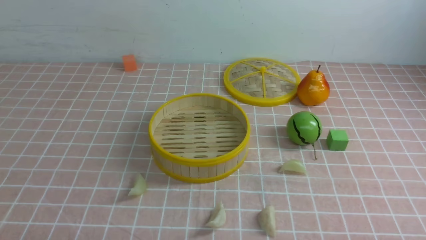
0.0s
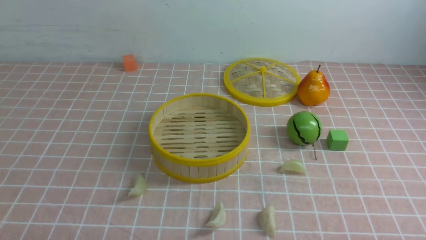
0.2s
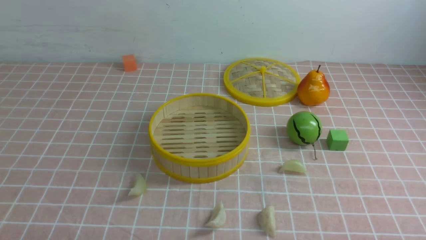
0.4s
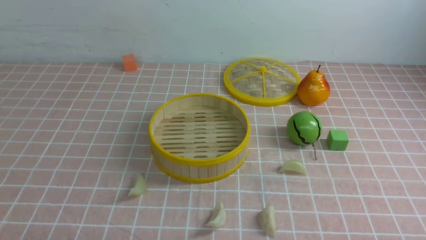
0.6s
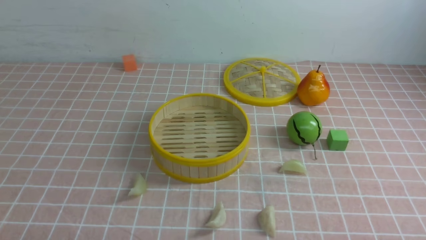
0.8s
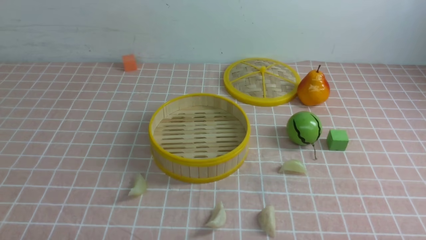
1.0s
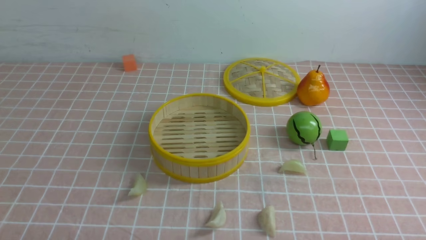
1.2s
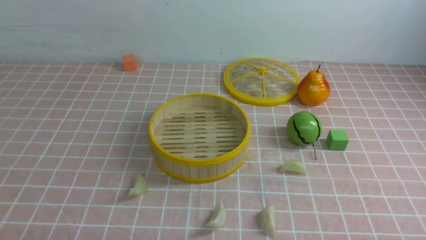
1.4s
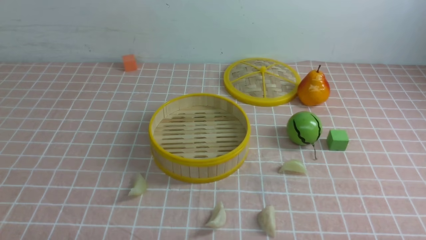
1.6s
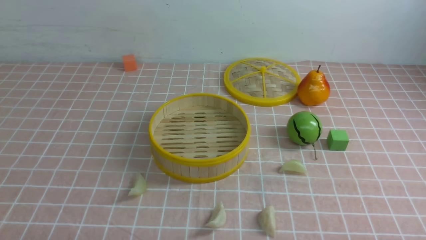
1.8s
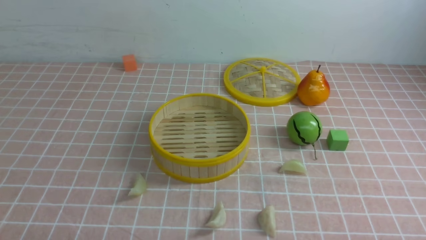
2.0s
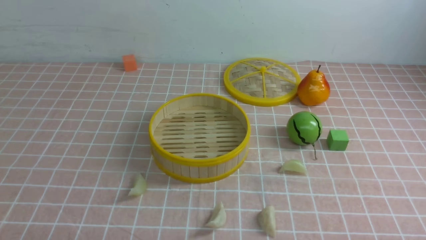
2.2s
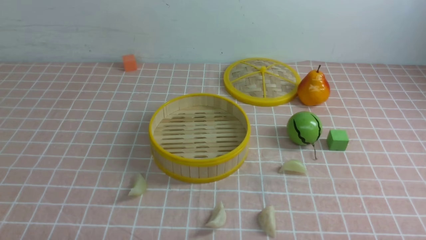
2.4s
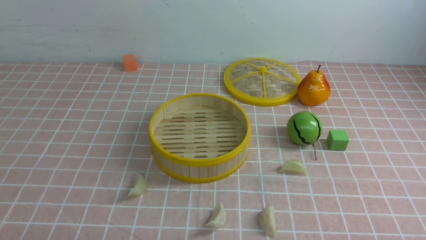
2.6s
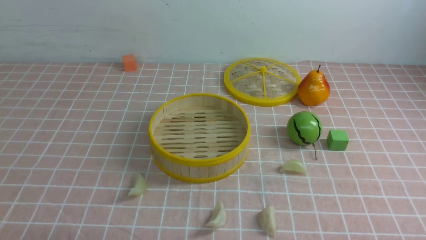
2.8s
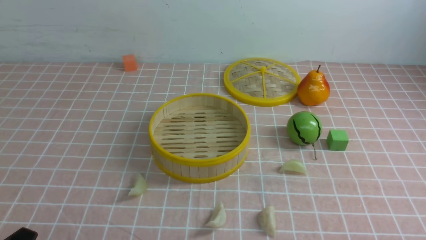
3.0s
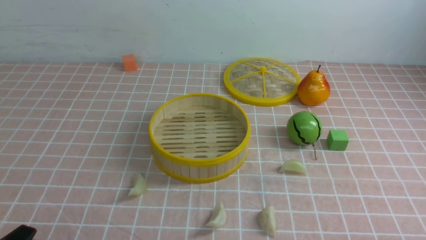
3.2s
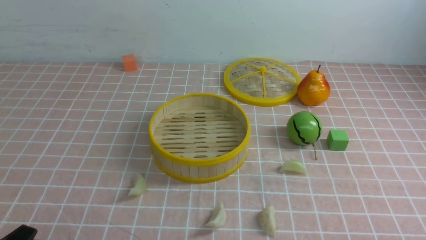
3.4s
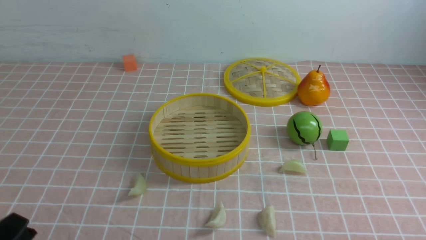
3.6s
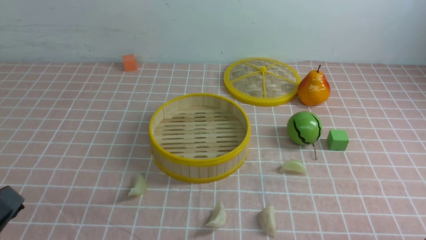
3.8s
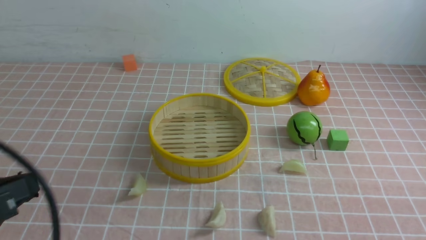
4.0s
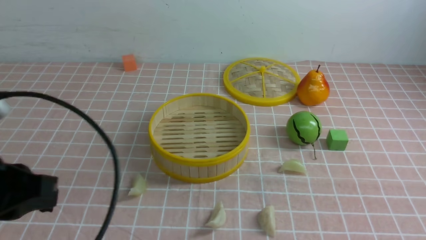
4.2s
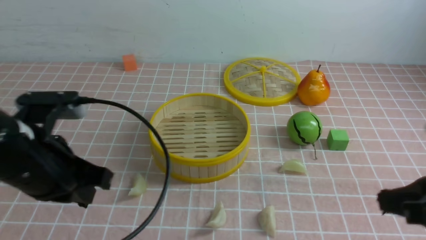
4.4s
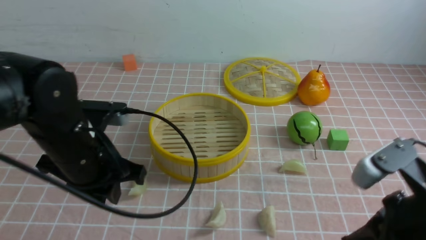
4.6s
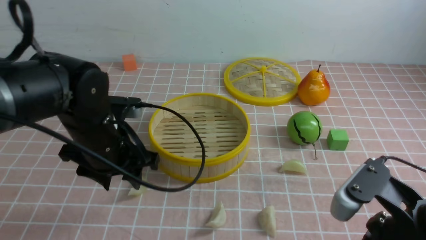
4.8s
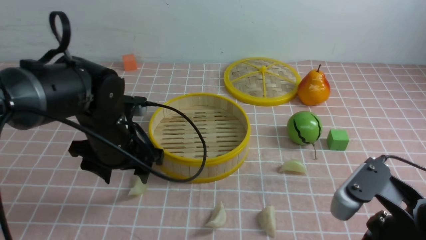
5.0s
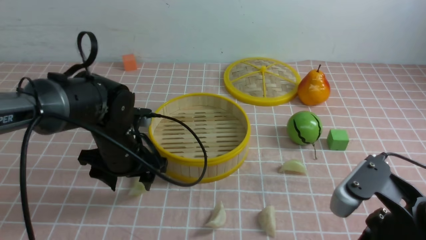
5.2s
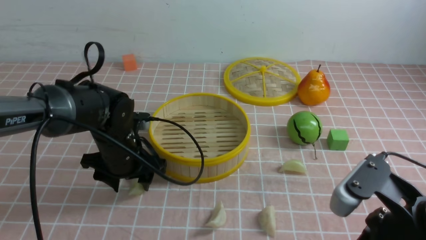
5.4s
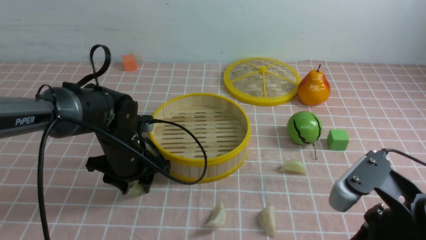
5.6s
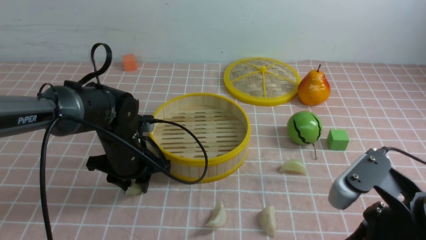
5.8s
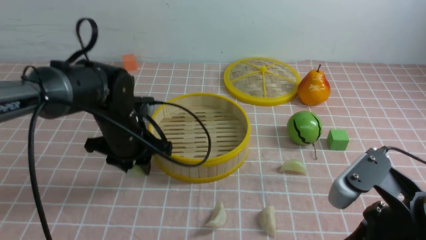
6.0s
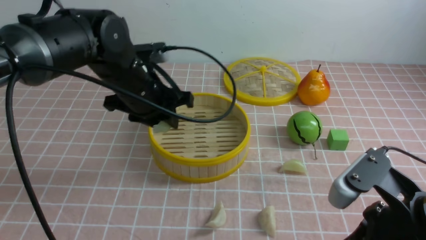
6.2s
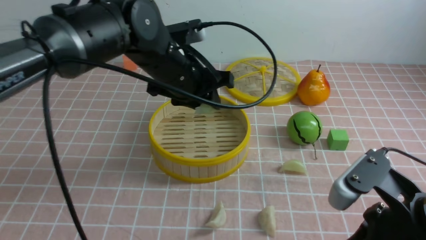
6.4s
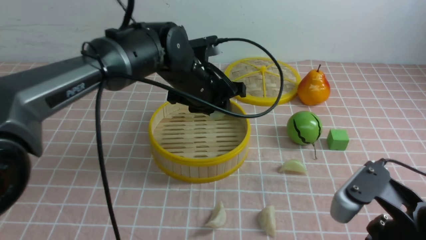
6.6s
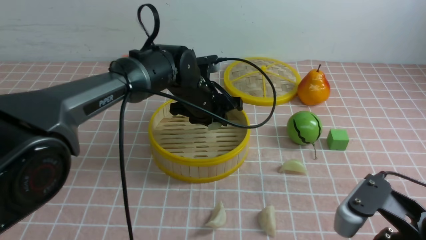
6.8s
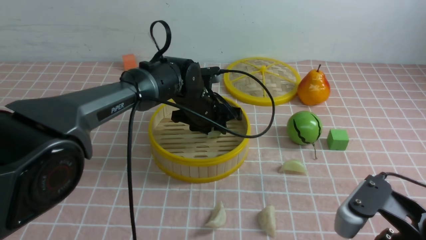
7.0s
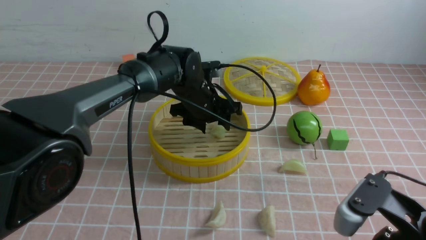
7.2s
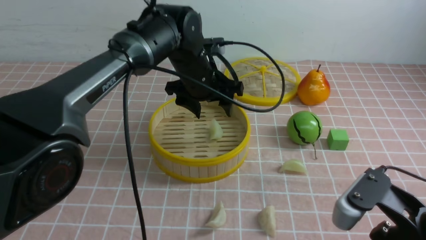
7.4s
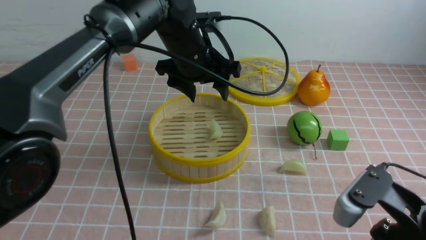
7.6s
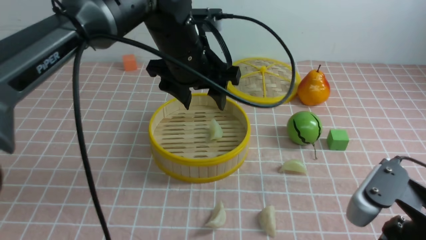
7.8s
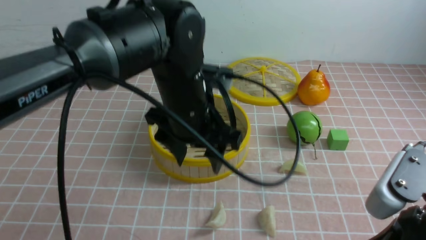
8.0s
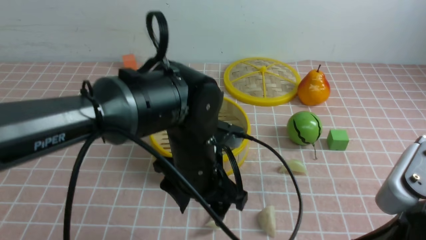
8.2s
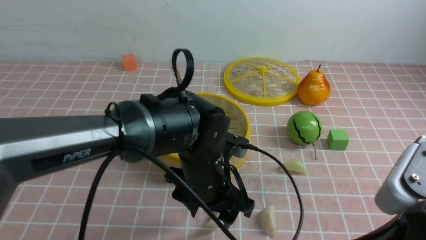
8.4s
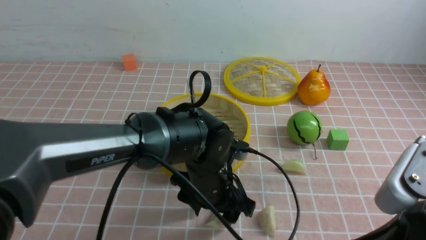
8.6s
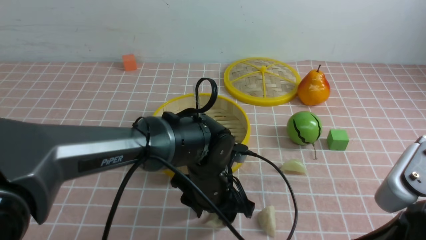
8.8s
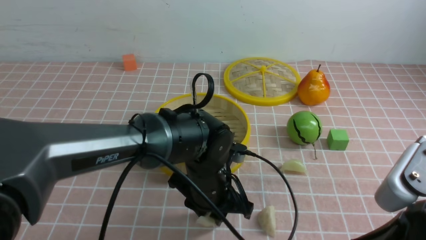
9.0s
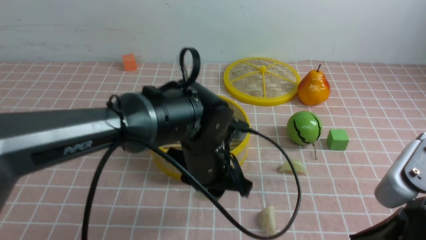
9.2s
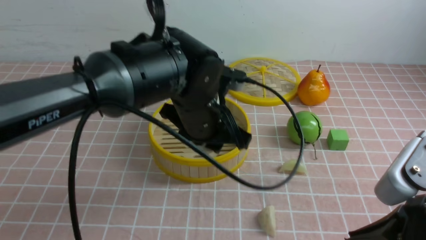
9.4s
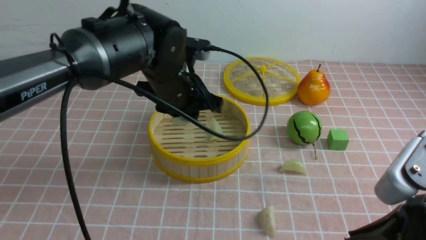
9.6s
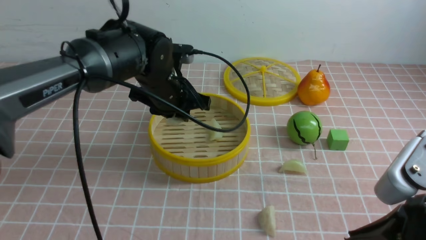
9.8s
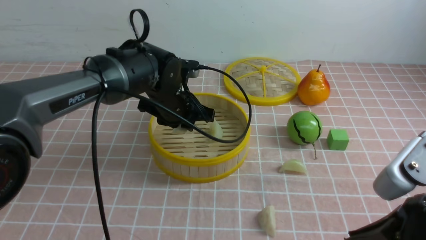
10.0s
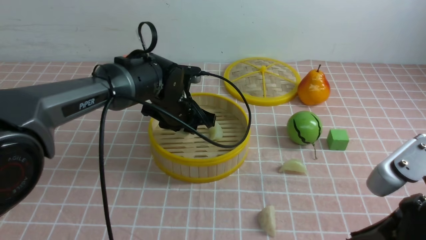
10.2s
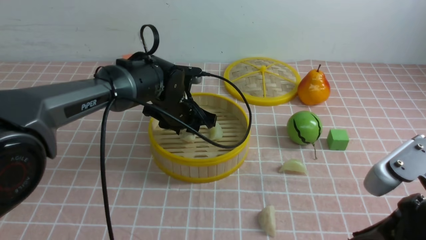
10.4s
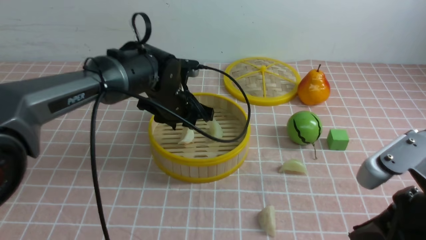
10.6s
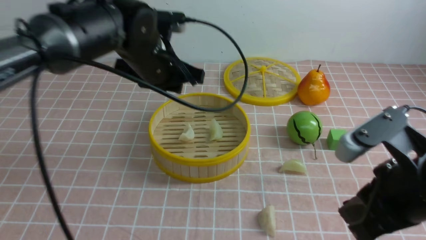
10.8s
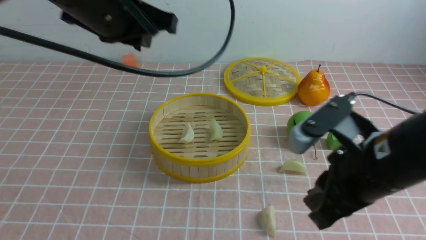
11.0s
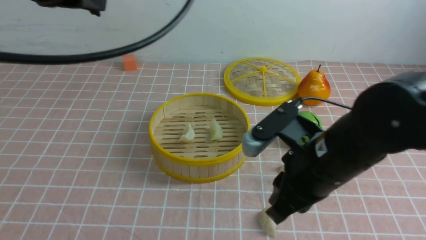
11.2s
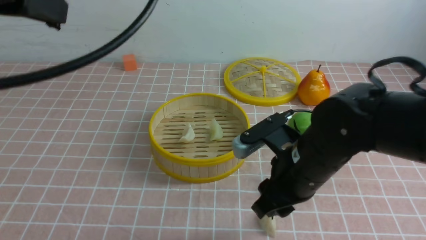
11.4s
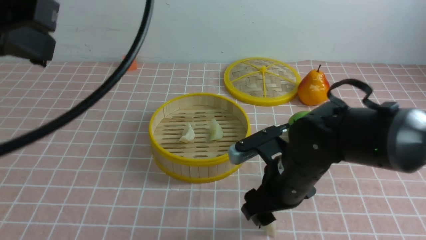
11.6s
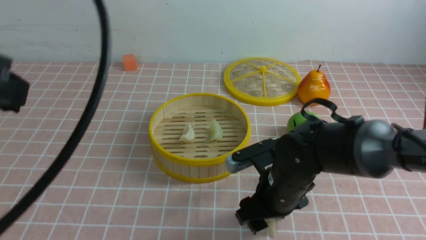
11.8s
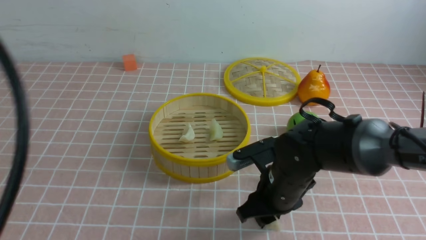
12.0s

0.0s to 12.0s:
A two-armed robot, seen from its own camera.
Task of the whole recording: put the dumplings into the steamer on the table with the pink tablecloth.
Step, 0.0s to 5.8s: use the left arm to grab a dumpling.
Step, 6.0s to 7.0s: use the left arm to put the dumpling into the steamer.
Step, 7.4s to 9.0s: use the left arm to grab a dumpling.
Step, 9.2s to 10.2s: use the left arm to put the dumpling into the steamer.
3.0s to 4.4s: The right gripper goes some 15 cm upward and forward, and closes. Meanwhile the left gripper is displaced forward and upward by some 20 cm, and closes up.
4.4s to 6.0s: The left gripper shifts some 20 cm forward, downward and to the right, and opens up; the right gripper goes approximately 5 cm to the left.
6.0s to 7.6s: The left gripper shifts roughly 15 cm to the right, upward and forward, and opens up.
7.6s to 9.0s: The left gripper goes some 20 cm backward and downward, and closes.
9.0s to 10.4s: The left gripper moves forward and to the left, roughly 15 cm.
10.4s to 12.0s: The right gripper is displaced forward, downward and to the left by some 25 cm, and opens up, while the left gripper heads backward, upward and to the left, covering roughly 40 cm, and closes its fingers.

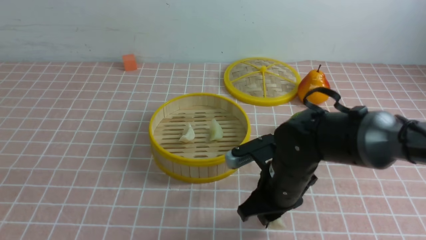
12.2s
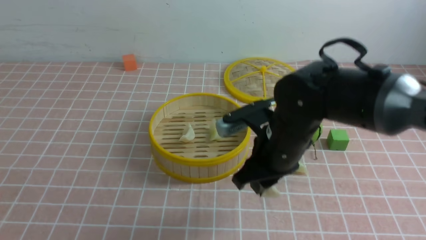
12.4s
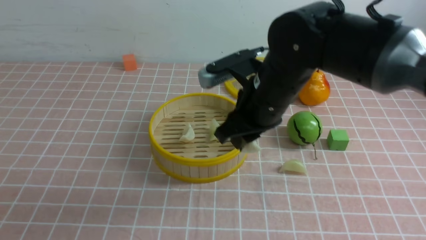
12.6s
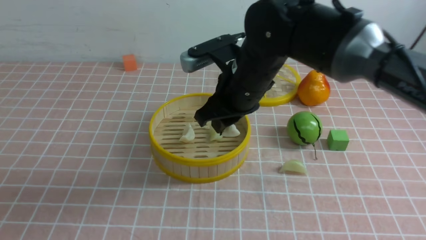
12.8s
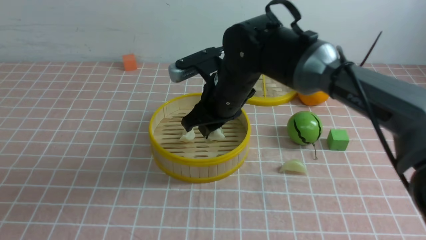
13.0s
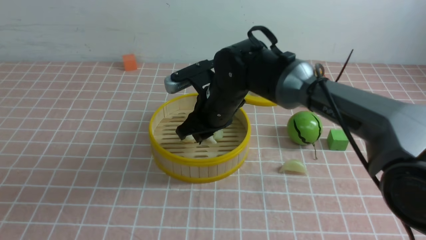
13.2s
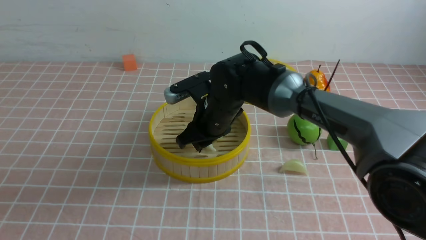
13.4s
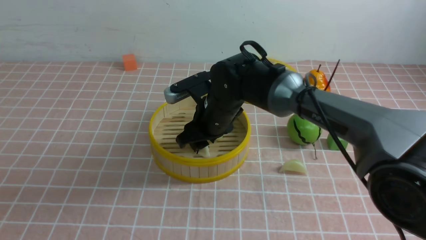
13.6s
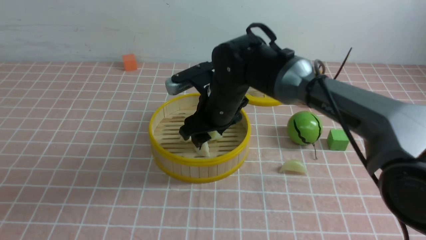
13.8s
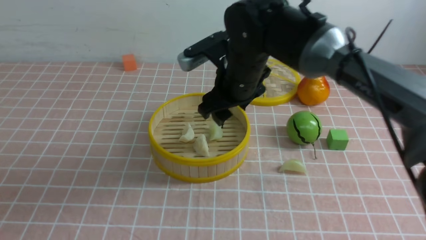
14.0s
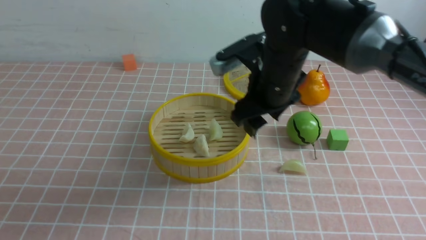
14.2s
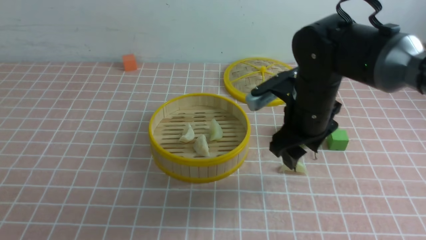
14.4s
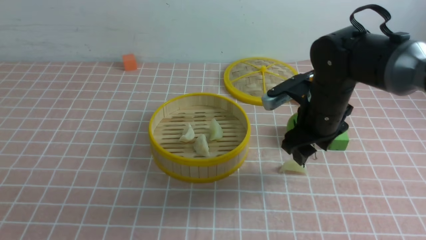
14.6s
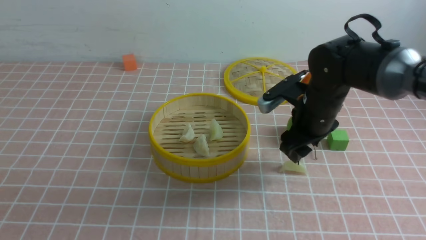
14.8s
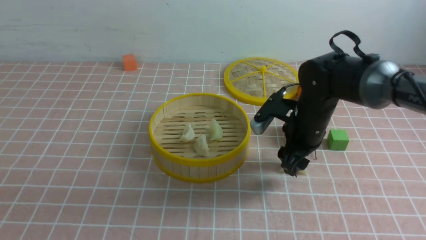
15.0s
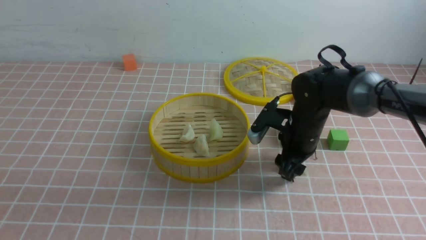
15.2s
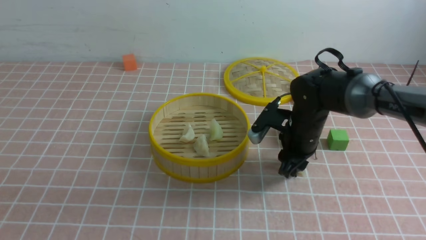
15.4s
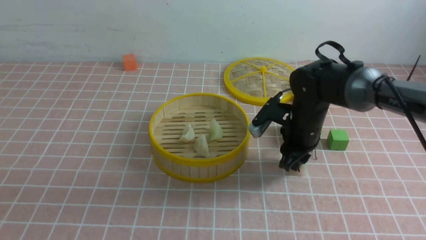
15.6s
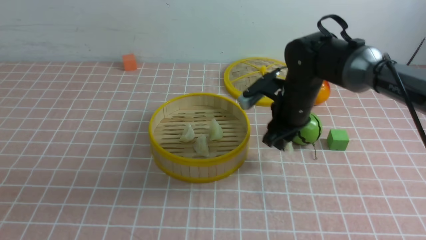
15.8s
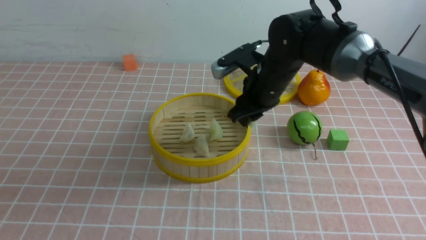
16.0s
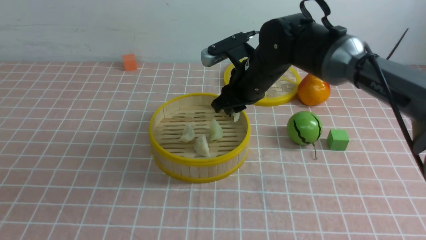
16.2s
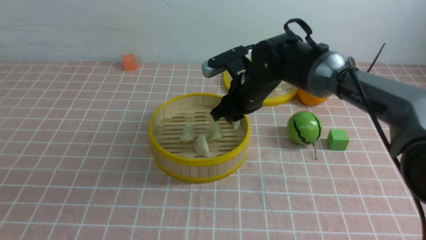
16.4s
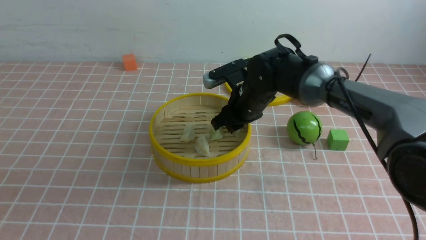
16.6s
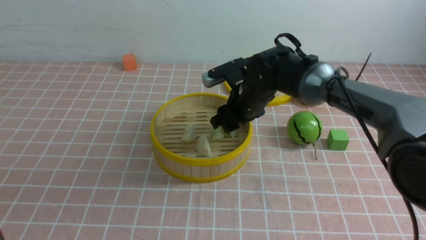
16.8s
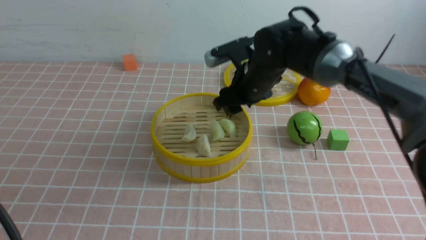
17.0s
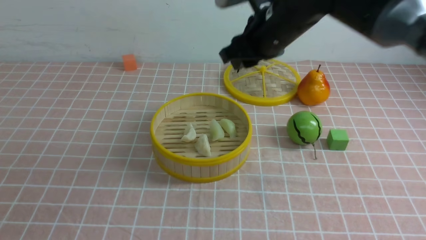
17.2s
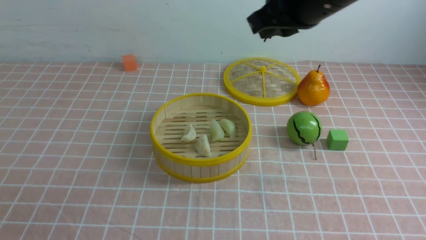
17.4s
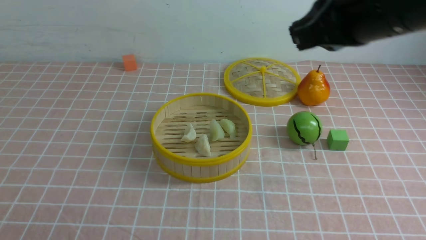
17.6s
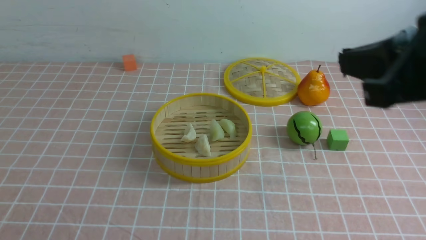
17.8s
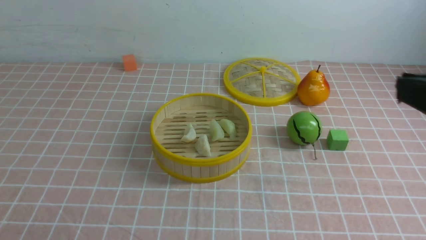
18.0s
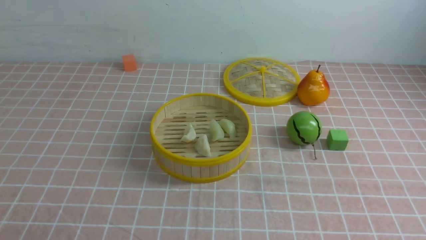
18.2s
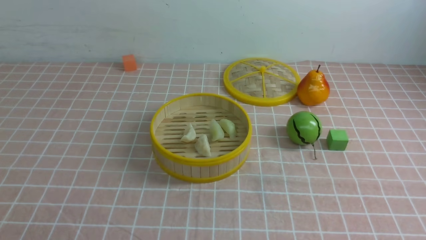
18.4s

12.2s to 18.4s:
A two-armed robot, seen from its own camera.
Task of the whole recording: put the dumplings into the steamer on the table with the pink tablecloth.
Step, 12.4s to 13.6s: use the right arm to put the dumpling into the steamer.
Step, 13.8s to 15.6s: use the right arm to grab a dumpling.
Step, 15.8s to 16.8s: use the right arm to put the dumpling into the steamer.
12.2s to 13.8s: The right gripper travels forward, to the left and upward by approximately 15 cm.
13.8s to 15.4s: The right gripper moves to the right and downward, about 15 cm.
15.4s to 16.8s: The right gripper heads to the left, covering roughly 10 cm.
16.8s to 18.4s: The right gripper is displaced backward, to the right and upward by roughly 50 cm, and closes its fingers, while the left gripper moves downward, roughly 10 cm.
